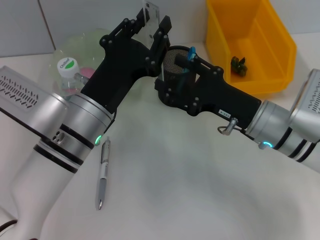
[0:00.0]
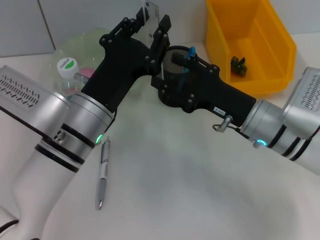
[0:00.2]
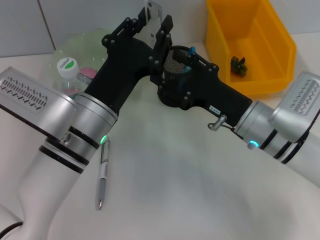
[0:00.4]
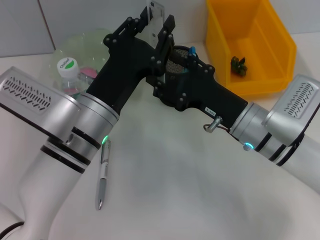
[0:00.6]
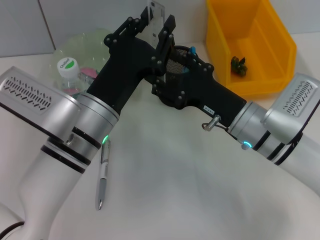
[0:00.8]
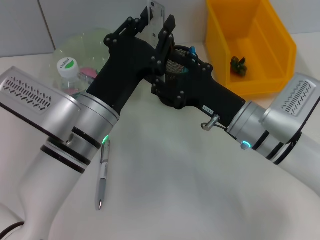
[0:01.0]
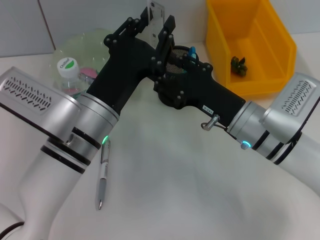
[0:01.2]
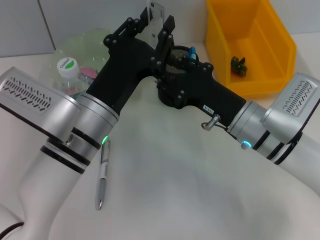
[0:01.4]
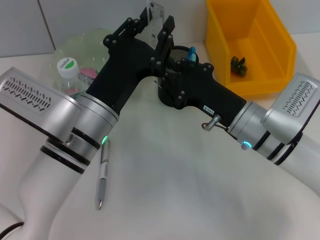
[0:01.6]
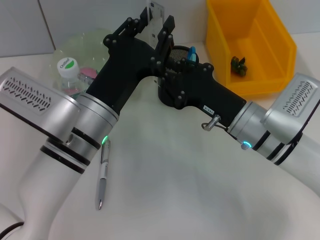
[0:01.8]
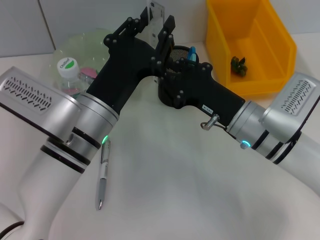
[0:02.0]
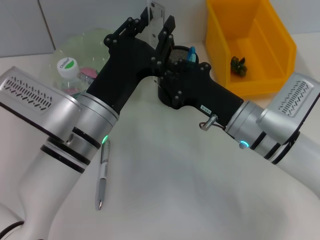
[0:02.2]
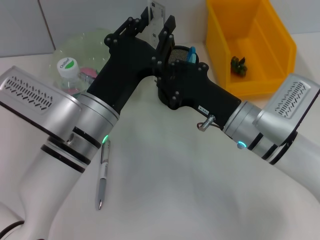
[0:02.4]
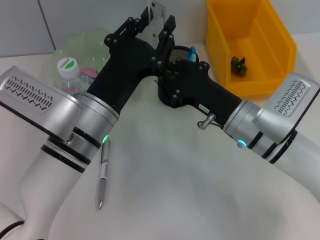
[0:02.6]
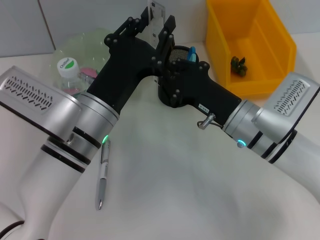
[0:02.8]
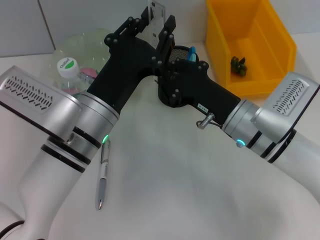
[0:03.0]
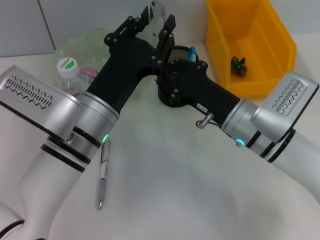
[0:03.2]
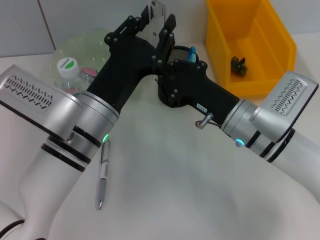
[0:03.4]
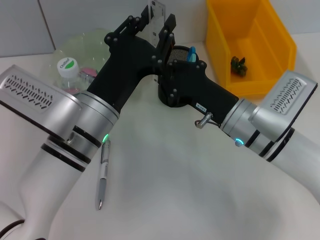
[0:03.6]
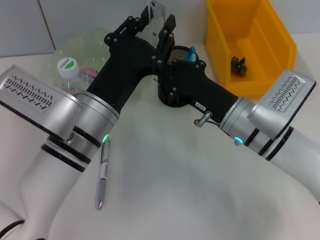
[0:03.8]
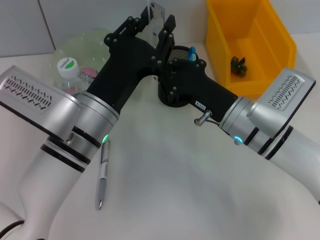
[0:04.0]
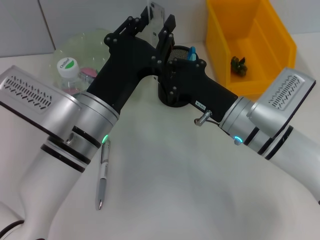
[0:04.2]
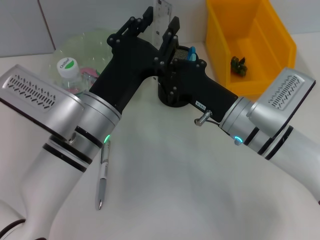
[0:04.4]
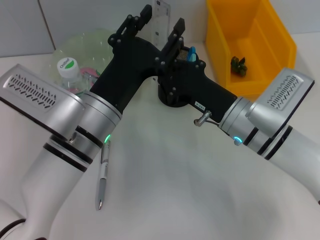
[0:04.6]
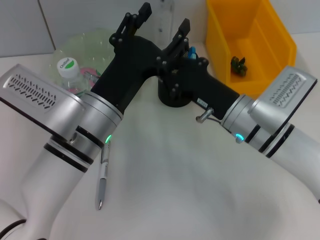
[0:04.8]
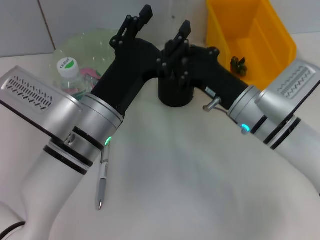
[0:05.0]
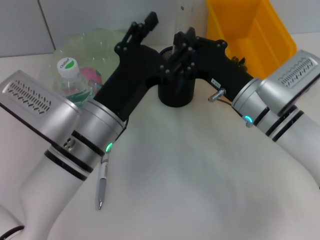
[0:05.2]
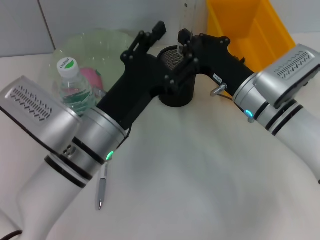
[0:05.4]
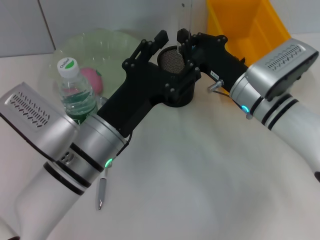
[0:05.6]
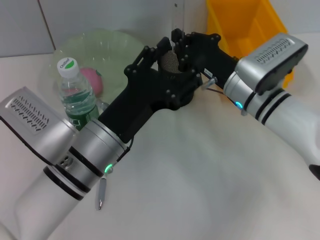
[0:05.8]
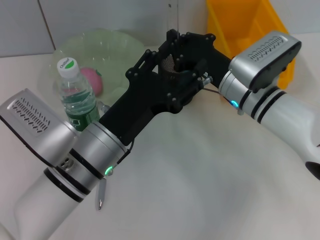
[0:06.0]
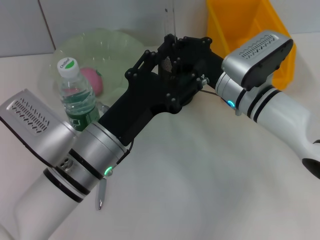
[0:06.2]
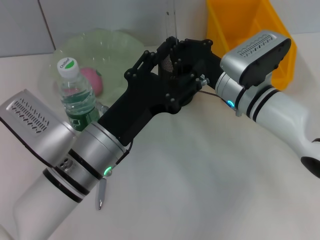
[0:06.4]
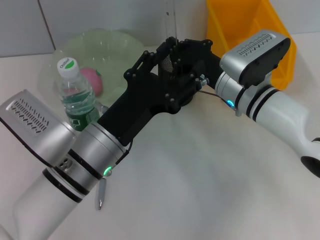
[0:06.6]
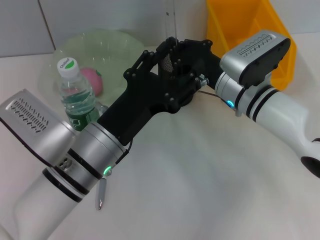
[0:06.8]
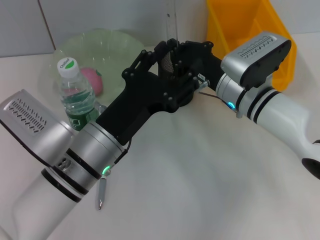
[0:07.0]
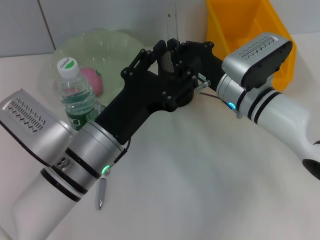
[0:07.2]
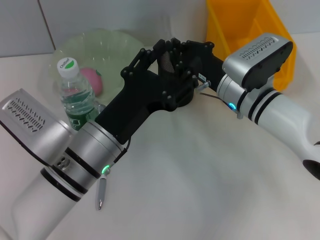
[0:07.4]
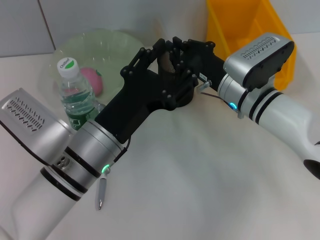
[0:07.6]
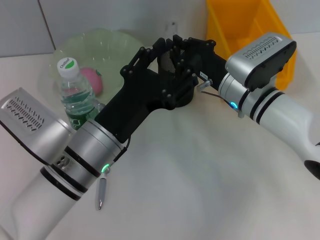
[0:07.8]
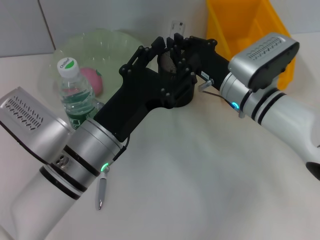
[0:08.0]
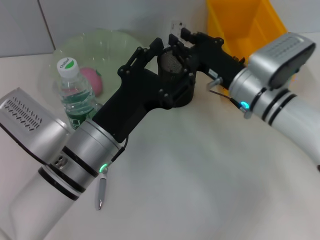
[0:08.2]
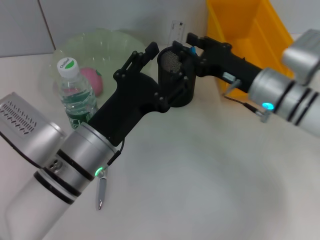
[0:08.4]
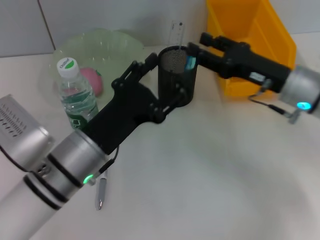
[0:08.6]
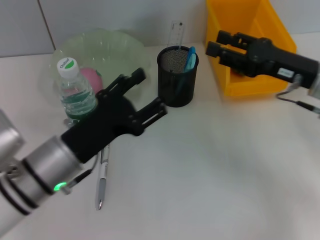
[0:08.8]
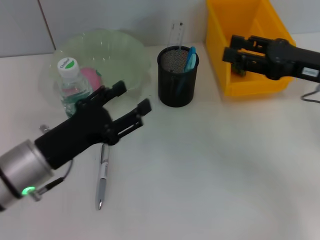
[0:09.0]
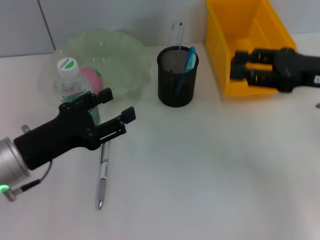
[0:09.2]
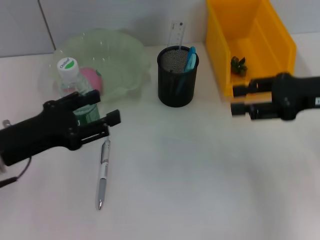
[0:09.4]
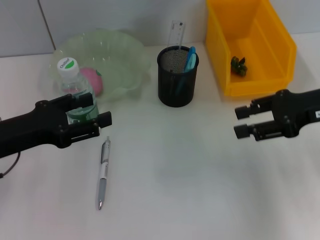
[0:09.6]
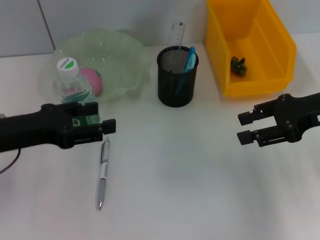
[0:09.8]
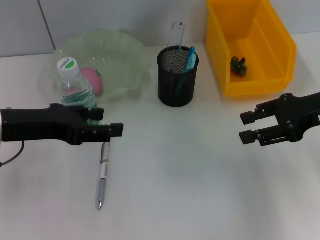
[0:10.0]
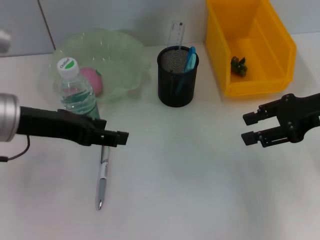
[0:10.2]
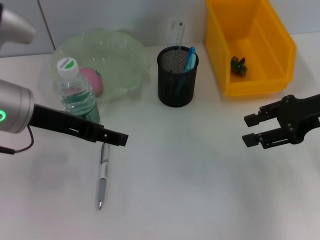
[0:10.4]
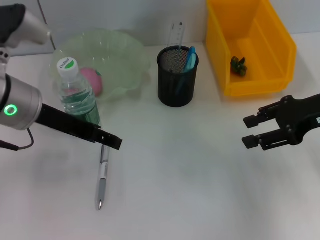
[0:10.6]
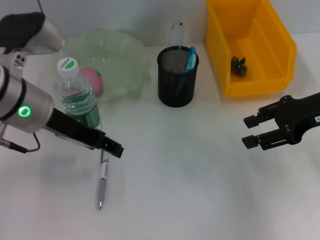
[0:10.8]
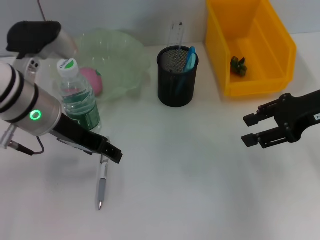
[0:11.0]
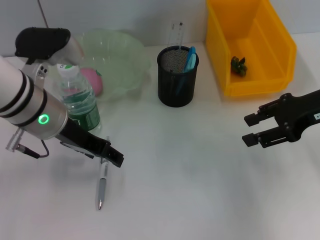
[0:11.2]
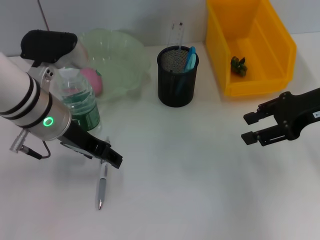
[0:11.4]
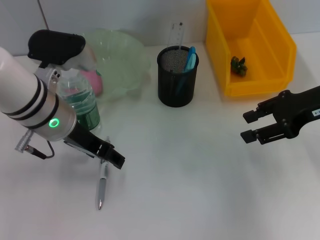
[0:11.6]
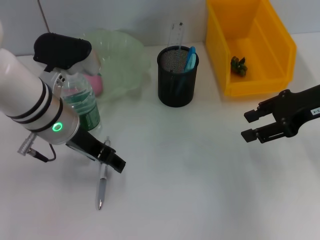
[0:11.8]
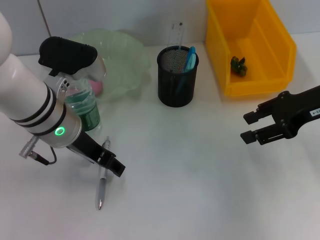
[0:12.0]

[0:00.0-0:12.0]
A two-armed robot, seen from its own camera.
Step, 0:00.0 to 0:04.4: Pass the ruler from the left hand to the right hand.
Step, 0:04.6 to 0:07.8: Place the ruler into the pen holder with the right hand.
0:00.0 to 0:01.6: The right gripper closes its fingers.
0:01.6 to 0:04.4: Both grippers stay about where they are.
0:04.4 to 0:06.0: The left gripper opens up, while the right gripper is displaced forward by some 5 cm.
0:06.0 to 0:07.6: The grippers stay close to where they were, moving slightly.
0:07.6 to 0:09.0: The left gripper shifts about 10 cm to the left, while the right gripper moves to the right and upward, roughly 15 cm, and opens.
0:09.0 to 0:10.4: The left gripper goes roughly 15 cm upward and forward.
0:10.4 to 0:12.0: The left gripper travels to the right by some 5 cm.

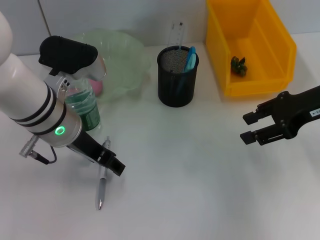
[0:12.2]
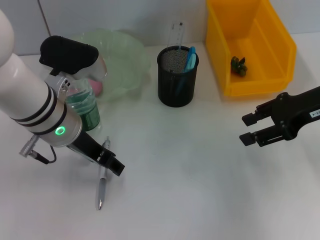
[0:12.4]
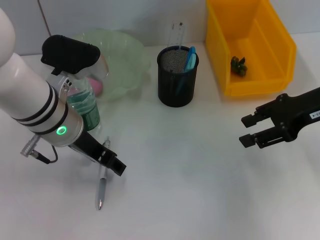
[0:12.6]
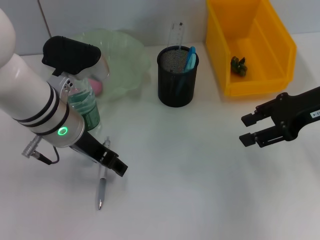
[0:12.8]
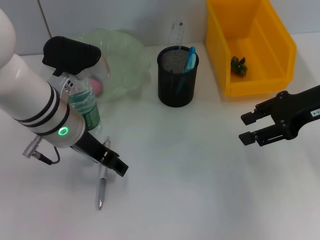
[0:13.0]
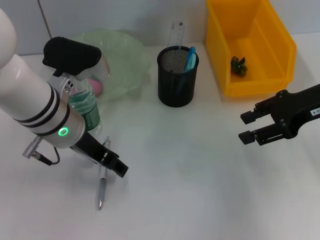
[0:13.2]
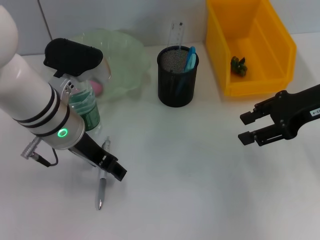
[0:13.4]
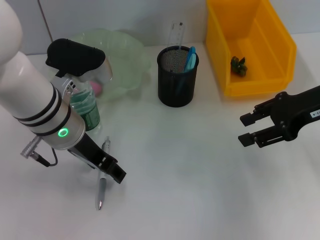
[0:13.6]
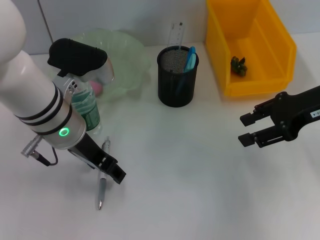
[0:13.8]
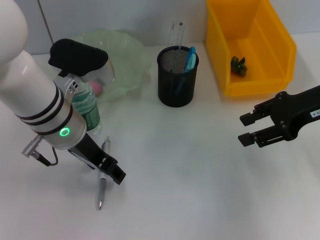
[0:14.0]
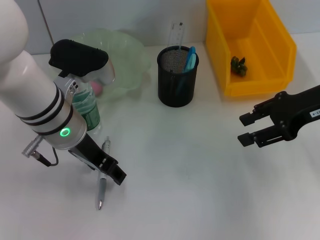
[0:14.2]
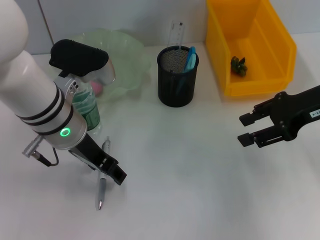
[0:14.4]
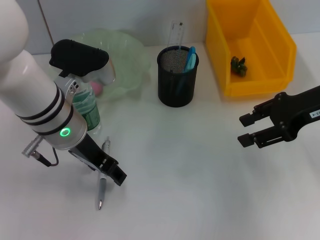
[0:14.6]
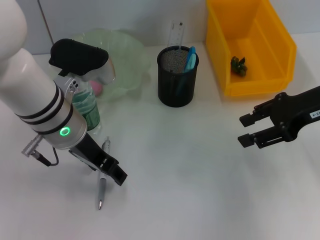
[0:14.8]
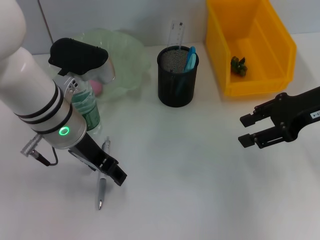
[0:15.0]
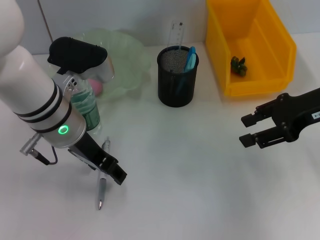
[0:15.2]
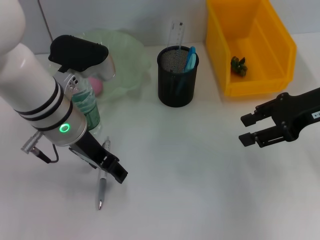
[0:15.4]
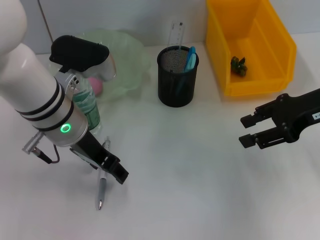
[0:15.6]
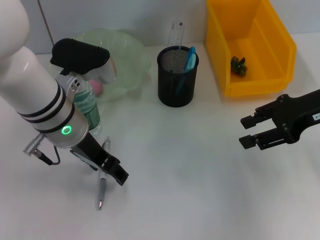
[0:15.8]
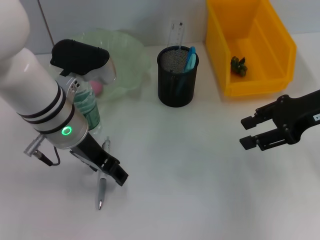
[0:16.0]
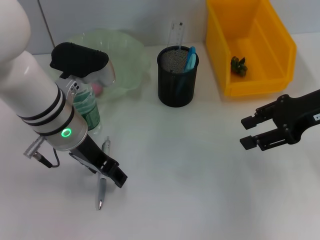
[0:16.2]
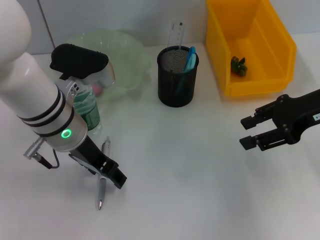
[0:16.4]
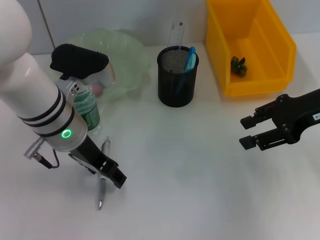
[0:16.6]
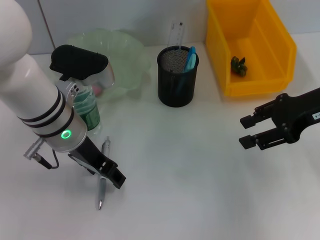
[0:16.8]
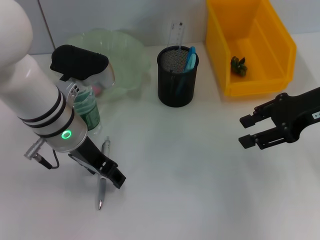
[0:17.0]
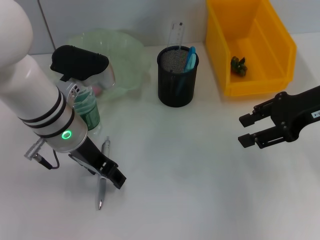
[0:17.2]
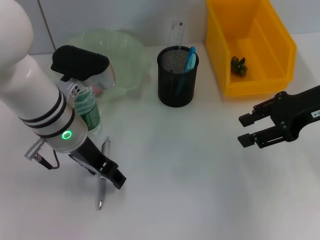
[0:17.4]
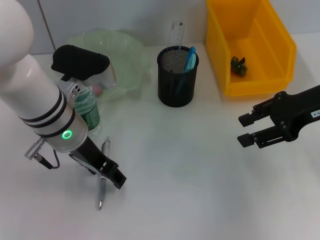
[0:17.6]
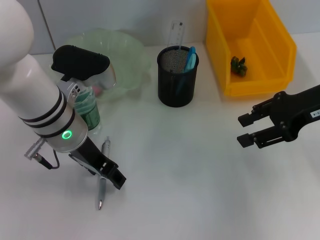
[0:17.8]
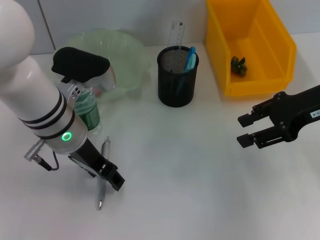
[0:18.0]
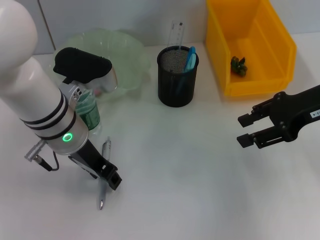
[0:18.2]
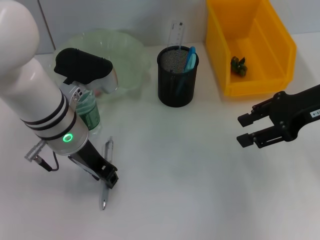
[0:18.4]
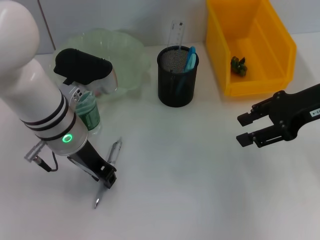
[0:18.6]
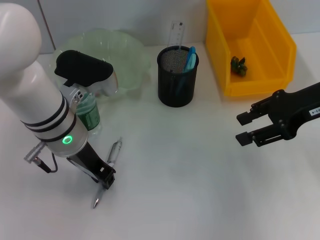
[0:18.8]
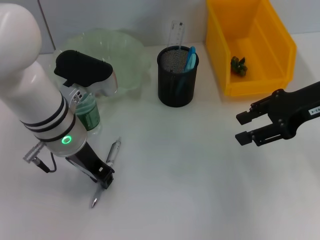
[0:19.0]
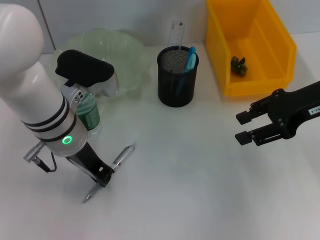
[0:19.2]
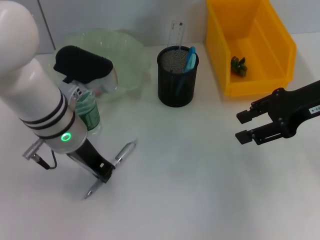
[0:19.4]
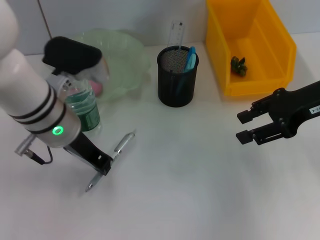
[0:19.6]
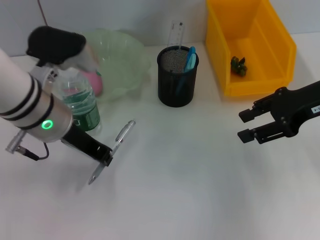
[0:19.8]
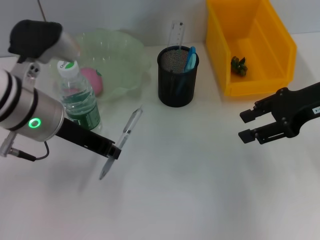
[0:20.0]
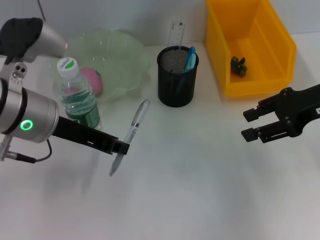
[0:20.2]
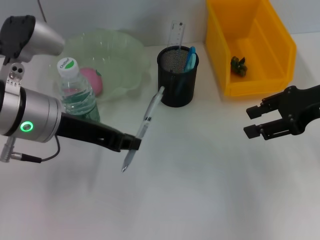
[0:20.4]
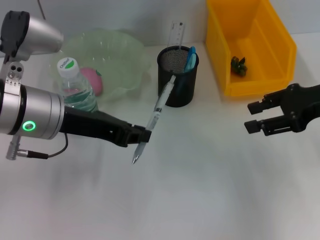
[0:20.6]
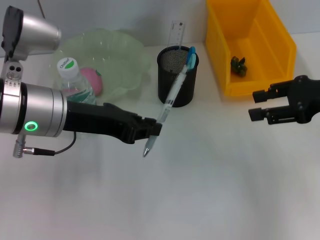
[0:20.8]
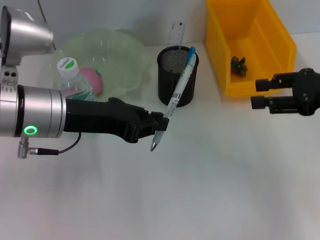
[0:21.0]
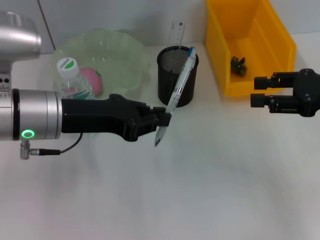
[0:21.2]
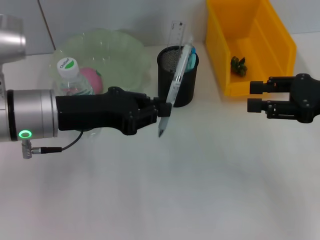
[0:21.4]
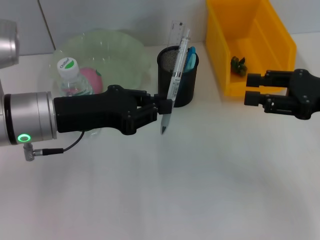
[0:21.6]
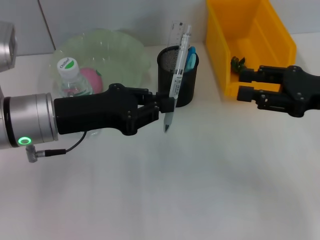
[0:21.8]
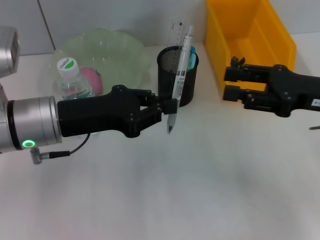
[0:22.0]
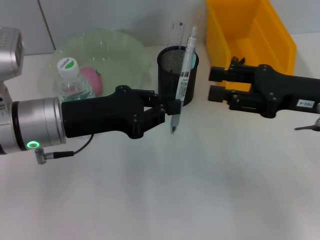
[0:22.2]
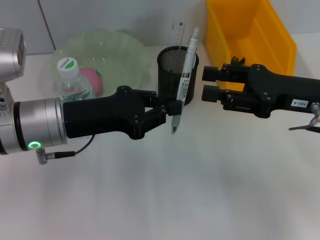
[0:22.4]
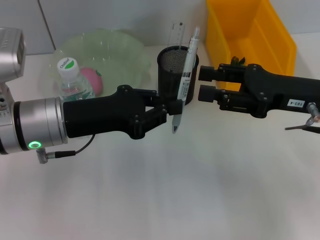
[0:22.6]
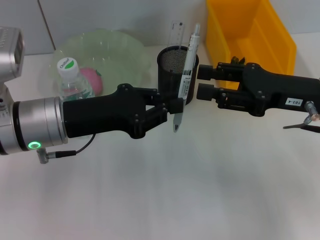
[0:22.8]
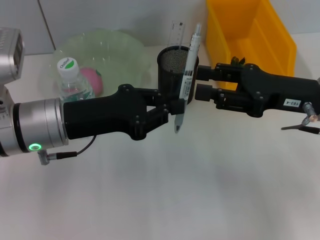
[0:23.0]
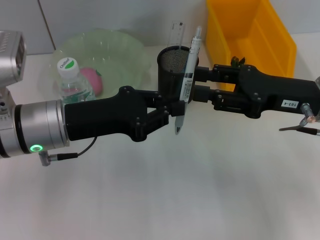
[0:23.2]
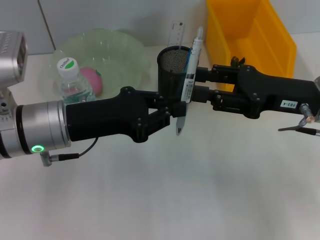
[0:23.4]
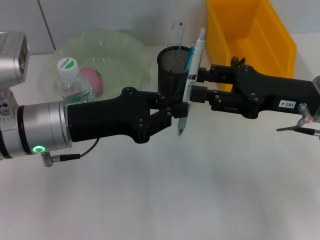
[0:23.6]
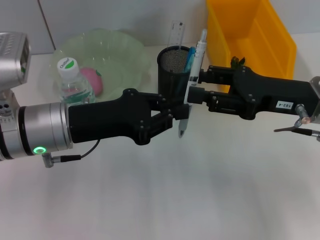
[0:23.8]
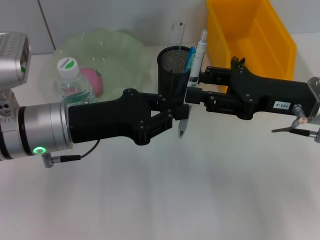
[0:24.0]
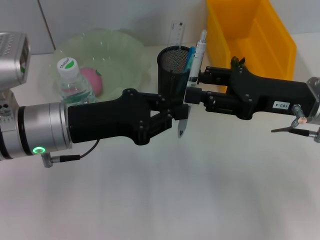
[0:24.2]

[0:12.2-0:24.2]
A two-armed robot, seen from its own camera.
Step, 0:12.2 to 0:19.0: Grab the gray spring-action pen with the left hand.
0:12.2 to 0:13.8: Both grippers stay put.
0:13.8 to 0:18.2: Both grippers stay about where they are.
0:18.2 to 0:19.8: The left gripper closes up.
0:19.8 to 0:21.2: The right gripper moves approximately 5 cm.
0:21.2 to 0:22.6: The right gripper shifts roughly 5 cm to the left.
0:22.6 to 0:24.2: The grippers make only small movements.
